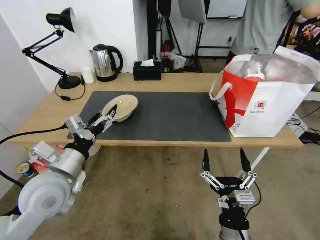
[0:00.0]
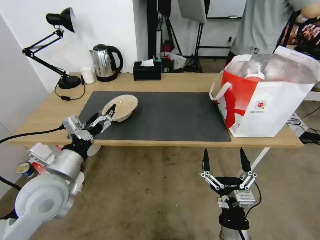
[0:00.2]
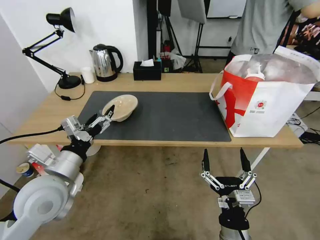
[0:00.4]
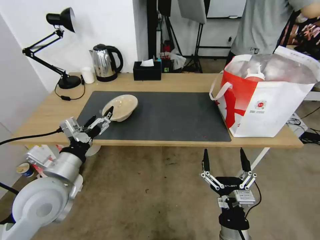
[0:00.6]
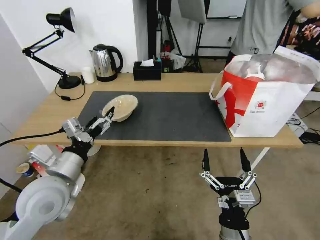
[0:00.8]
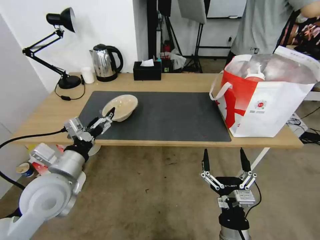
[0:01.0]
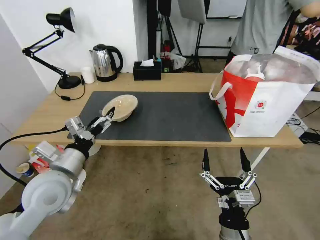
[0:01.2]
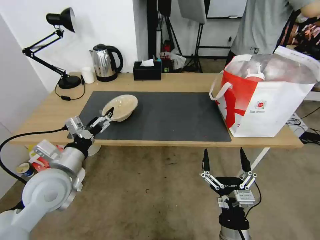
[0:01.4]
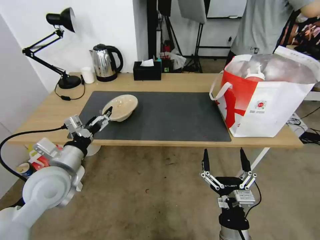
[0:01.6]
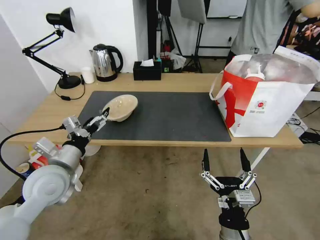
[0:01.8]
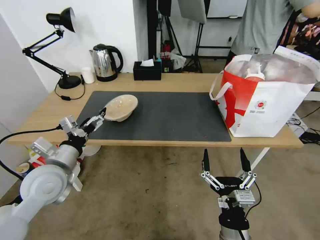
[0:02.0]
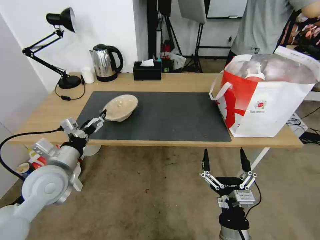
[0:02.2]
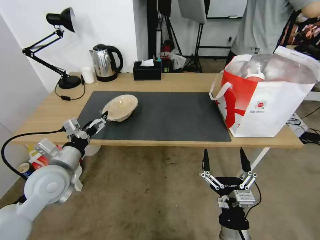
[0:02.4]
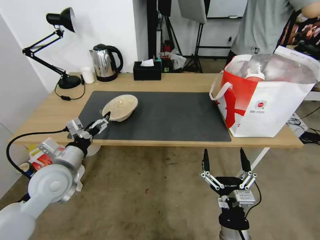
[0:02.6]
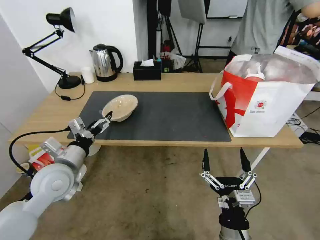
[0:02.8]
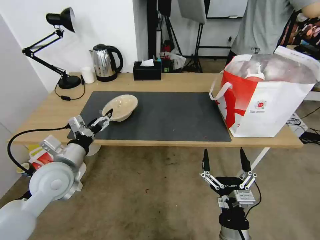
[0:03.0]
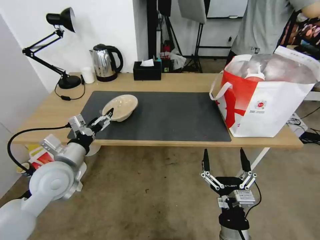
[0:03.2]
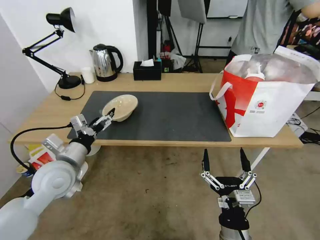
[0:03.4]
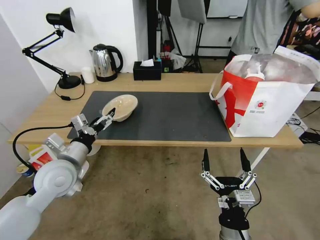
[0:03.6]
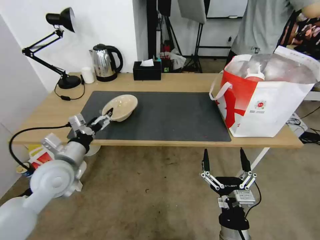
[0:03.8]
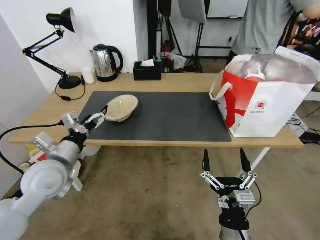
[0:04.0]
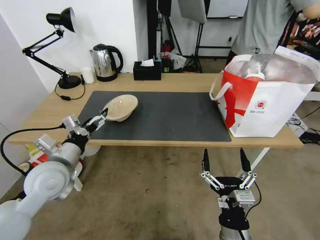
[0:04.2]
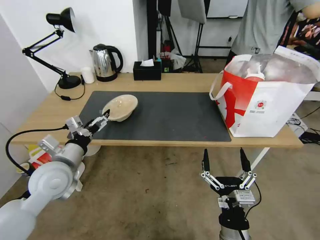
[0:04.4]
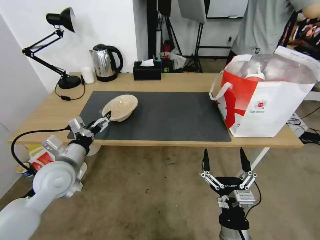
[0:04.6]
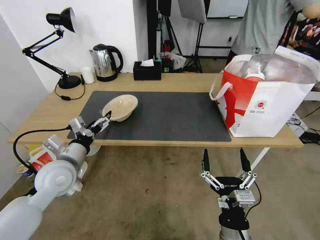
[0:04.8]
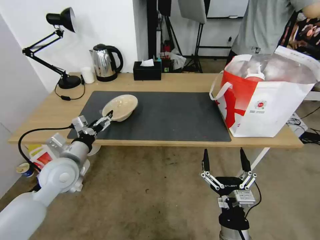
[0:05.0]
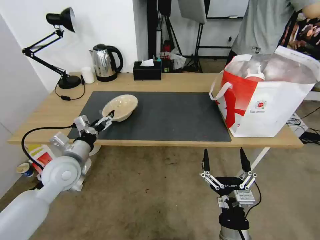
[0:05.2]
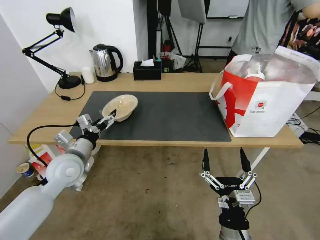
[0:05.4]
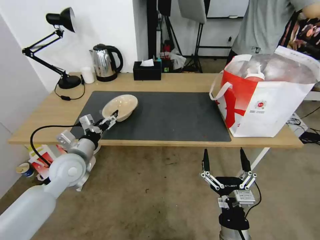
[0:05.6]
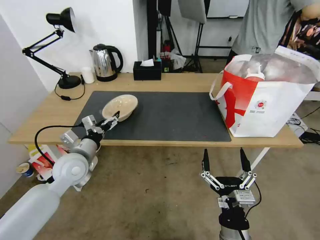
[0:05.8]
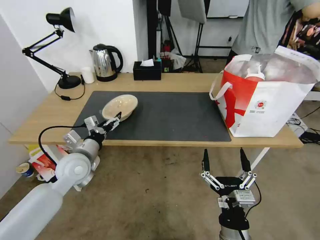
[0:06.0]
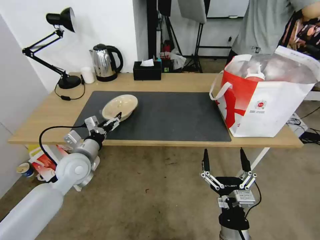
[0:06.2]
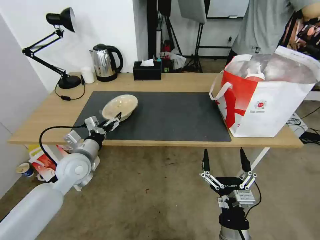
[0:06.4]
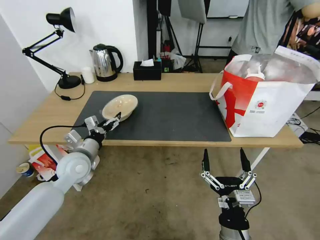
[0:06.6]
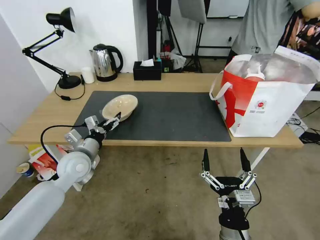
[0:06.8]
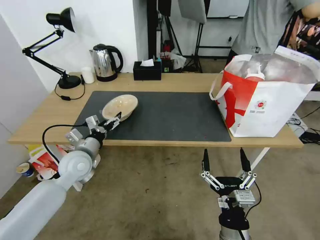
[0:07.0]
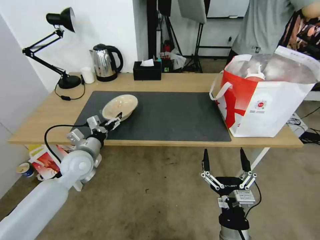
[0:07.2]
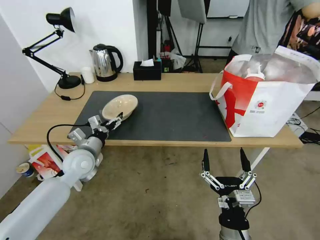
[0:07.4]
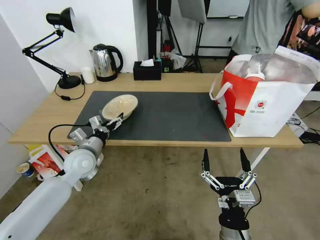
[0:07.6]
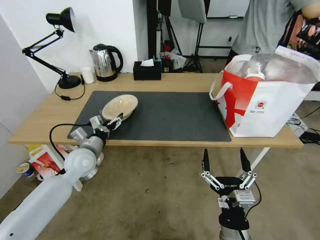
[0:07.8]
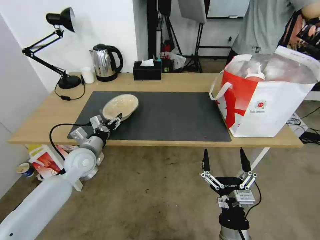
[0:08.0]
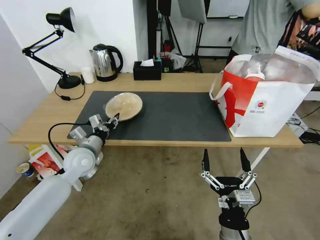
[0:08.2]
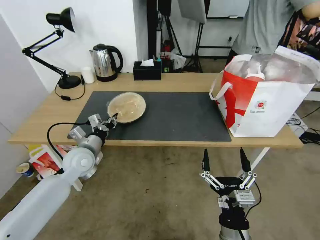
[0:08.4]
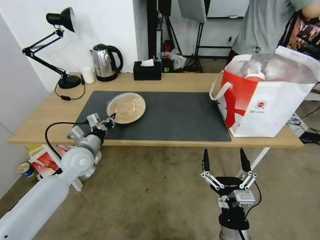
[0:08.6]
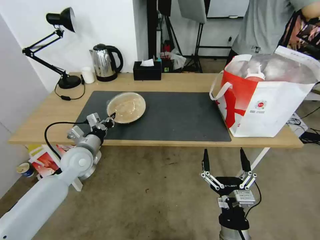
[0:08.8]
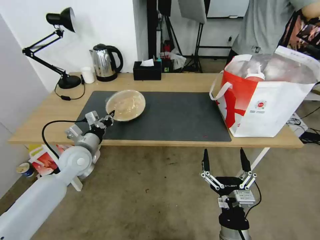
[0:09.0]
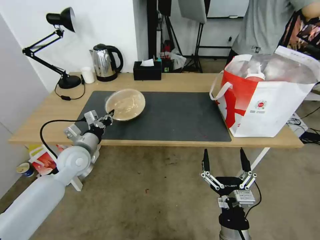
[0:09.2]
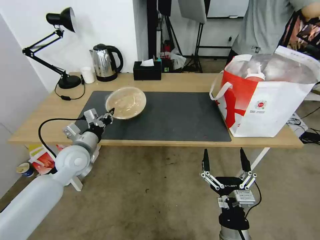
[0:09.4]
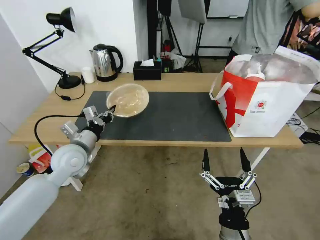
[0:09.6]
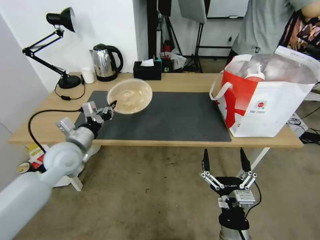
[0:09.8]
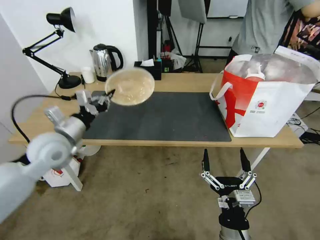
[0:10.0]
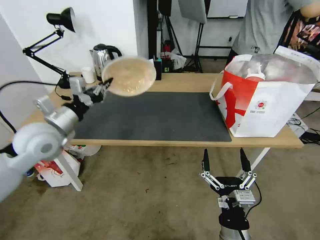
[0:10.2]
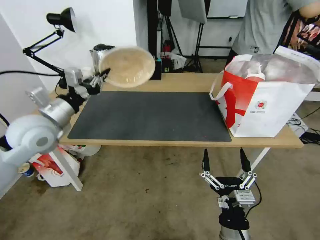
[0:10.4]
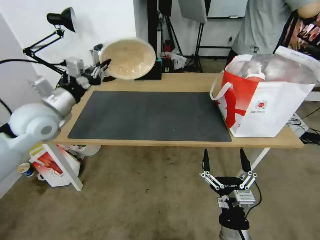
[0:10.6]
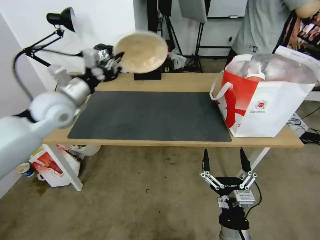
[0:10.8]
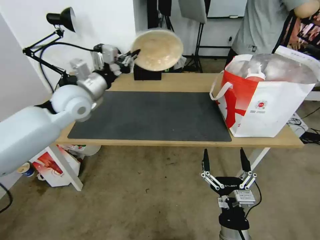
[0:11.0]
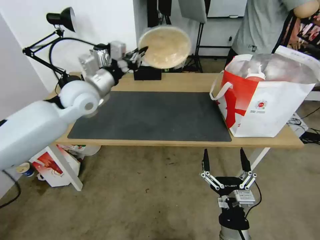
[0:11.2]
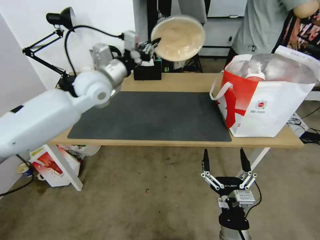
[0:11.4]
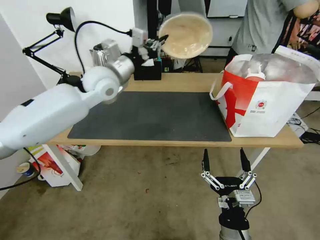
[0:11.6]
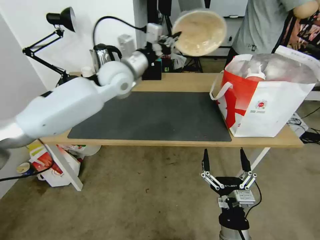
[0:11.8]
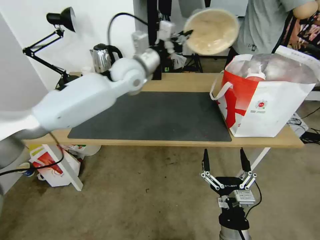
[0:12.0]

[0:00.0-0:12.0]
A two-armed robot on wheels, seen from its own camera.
Task of the whole recording: Pick up the trash from the table and place it into the takeout bag.
0:00.0 to 0:03.0: The grippers stay close to where they were, moving slightly.
0:03.0 to 0:04.4: The grippers make only small movements.
0:04.4 to 0:06.0: The left gripper goes about 5 cm forward.
0:06.0 to 0:07.6: The grippers move only a little.
0:07.6 to 0:09.0: The left gripper closes its fingers.
0:09.0 to 0:10.4: The left gripper goes some 15 cm upward.
0:10.4 to 0:12.0: The left gripper is displaced to the right and forward by about 25 cm.

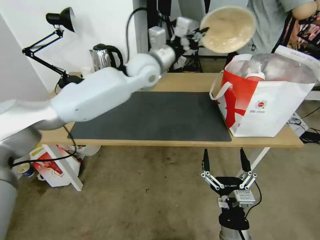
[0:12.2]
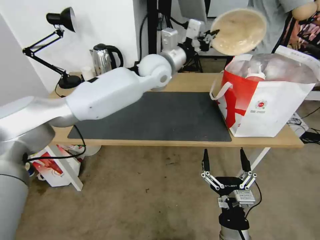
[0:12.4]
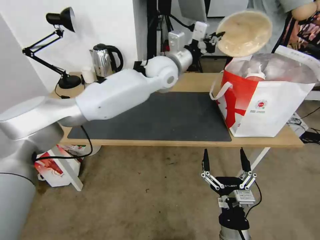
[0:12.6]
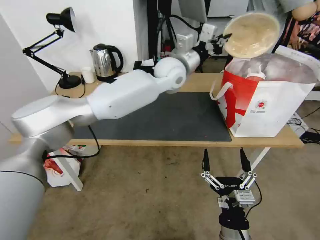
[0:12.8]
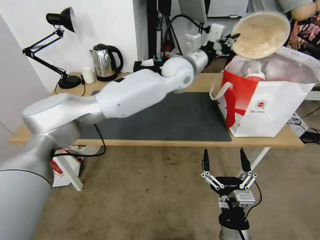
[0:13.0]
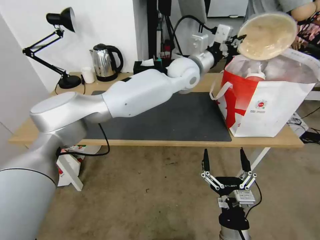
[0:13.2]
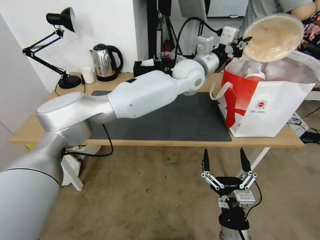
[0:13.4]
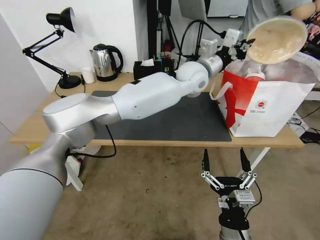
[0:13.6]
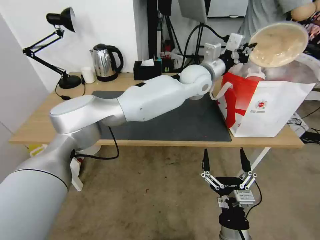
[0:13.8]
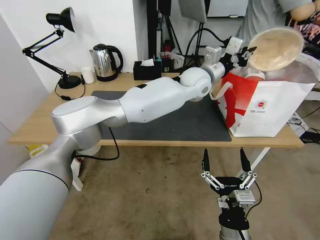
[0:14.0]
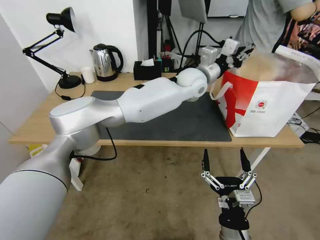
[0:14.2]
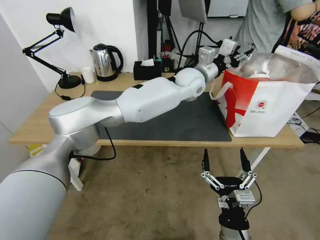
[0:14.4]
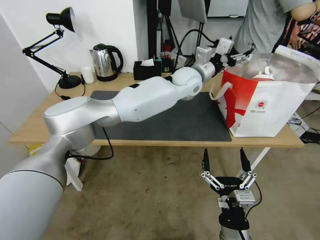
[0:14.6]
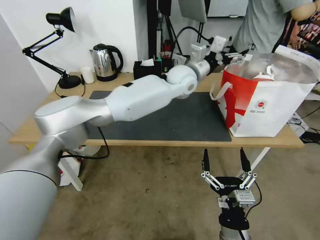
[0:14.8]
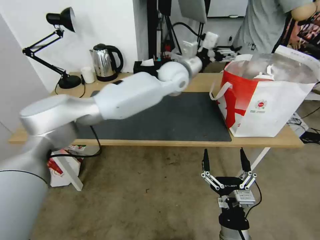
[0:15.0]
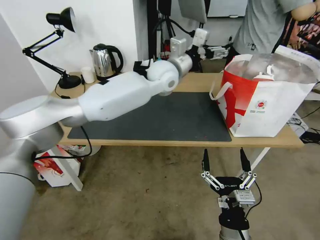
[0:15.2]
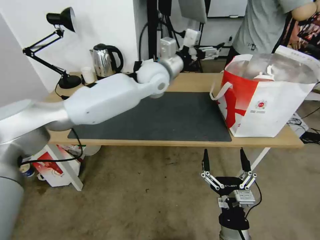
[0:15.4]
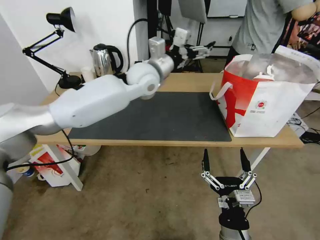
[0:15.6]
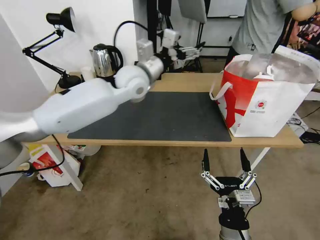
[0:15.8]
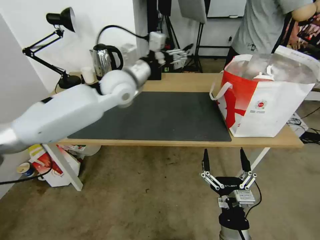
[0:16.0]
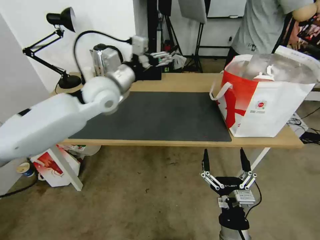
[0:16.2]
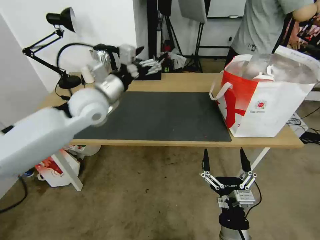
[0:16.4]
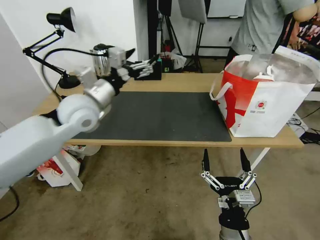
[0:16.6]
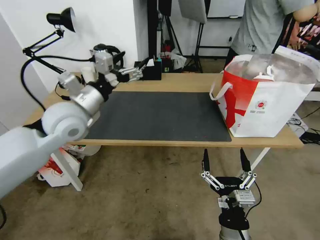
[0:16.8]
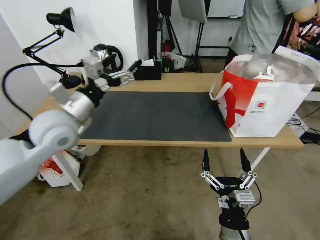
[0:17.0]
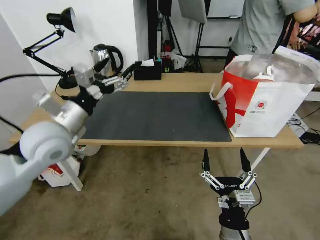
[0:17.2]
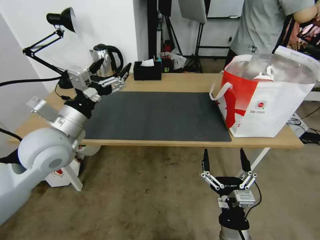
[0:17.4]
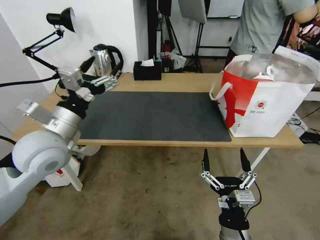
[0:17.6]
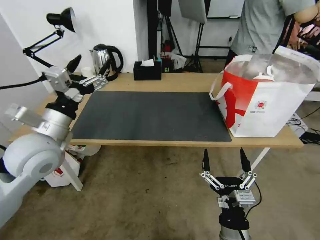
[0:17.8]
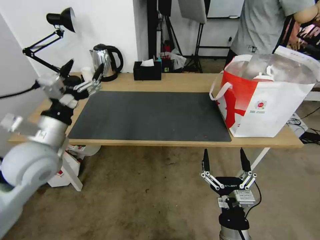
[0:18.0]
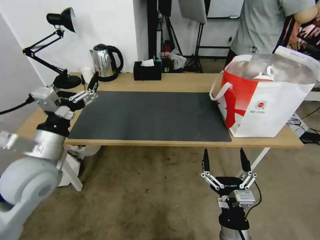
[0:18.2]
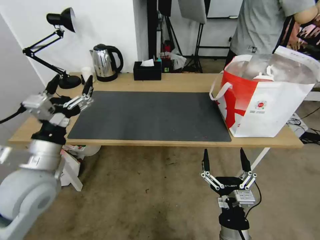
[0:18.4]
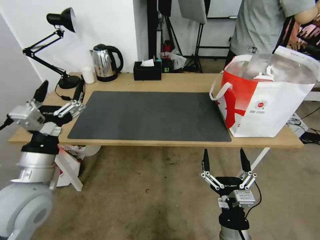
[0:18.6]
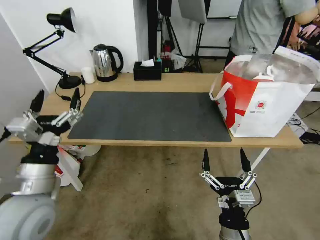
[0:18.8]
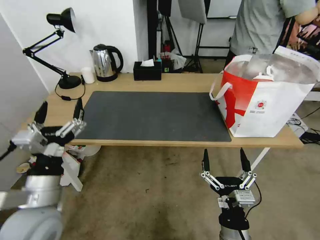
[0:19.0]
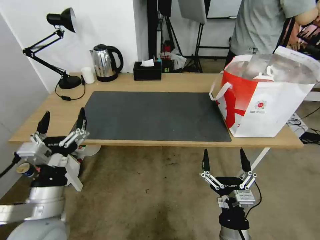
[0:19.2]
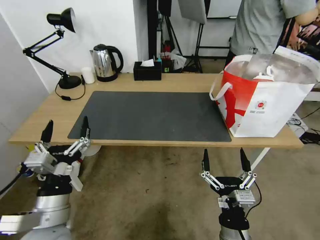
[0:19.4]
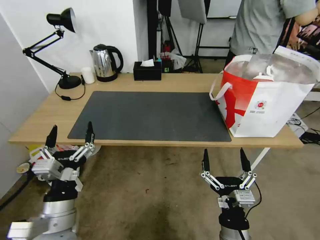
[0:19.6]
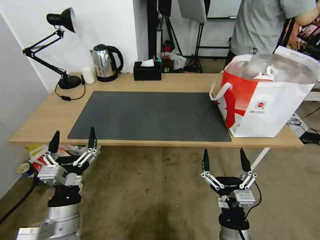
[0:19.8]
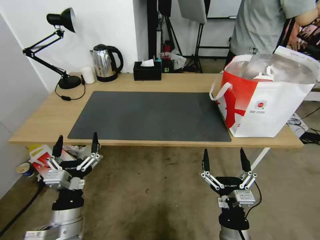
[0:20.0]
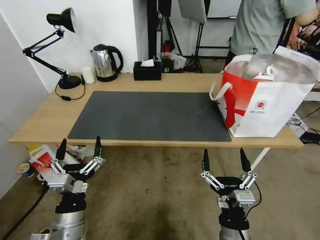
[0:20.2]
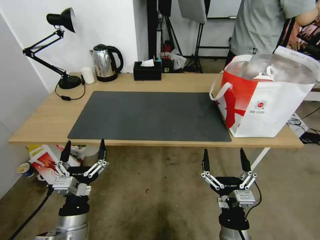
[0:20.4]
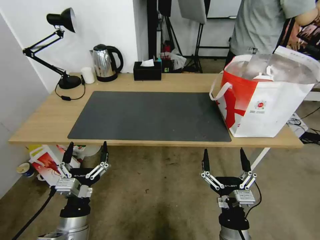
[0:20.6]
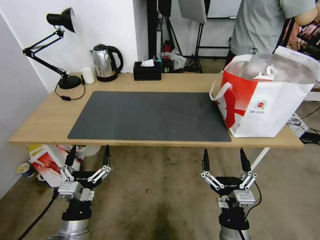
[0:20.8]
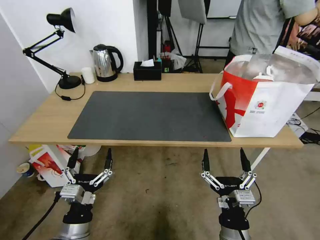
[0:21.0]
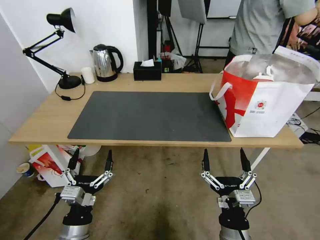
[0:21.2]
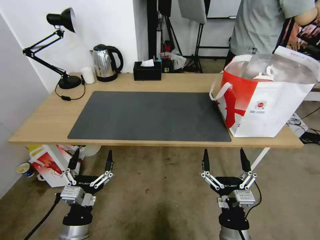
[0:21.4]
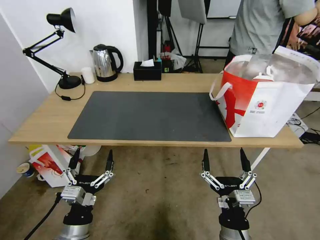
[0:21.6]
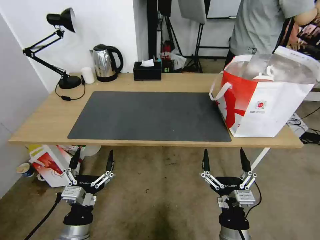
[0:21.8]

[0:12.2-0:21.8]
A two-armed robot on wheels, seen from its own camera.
Task of the whole recording: Pick up the trash from the table and place it into the takeout bag.
0:12.2 to 0:13.8: The left gripper travels to the right by about 20 cm.
0:13.8 to 0:15.4: The left gripper is displaced to the left by some 15 cm, and opens its fingers.
0:15.4 to 0:17.0: The left gripper goes about 30 cm to the left and backward.
0:17.0 to 0:18.6: The left gripper heads backward and downward, covering approximately 15 cm.
0:18.6 to 0:20.2: The left gripper travels downward, backward and to the right by approximately 15 cm.
0:20.2 to 0:21.8: The grippers move only a little.

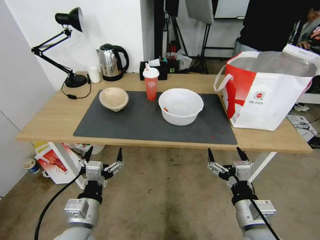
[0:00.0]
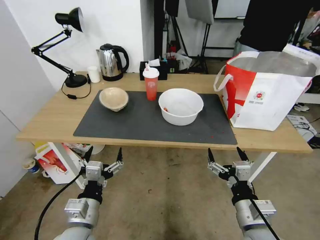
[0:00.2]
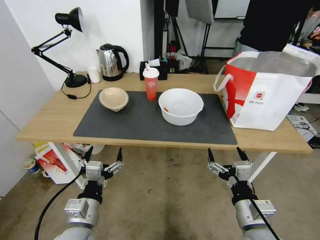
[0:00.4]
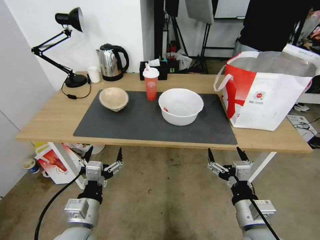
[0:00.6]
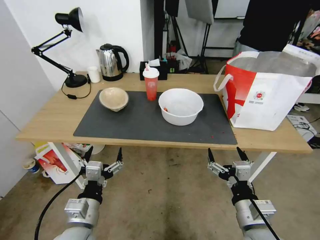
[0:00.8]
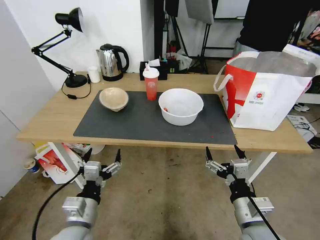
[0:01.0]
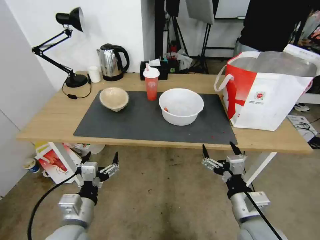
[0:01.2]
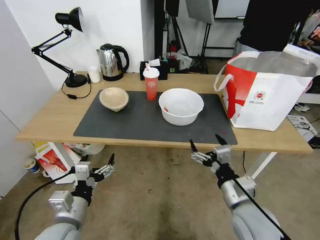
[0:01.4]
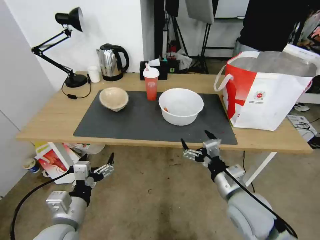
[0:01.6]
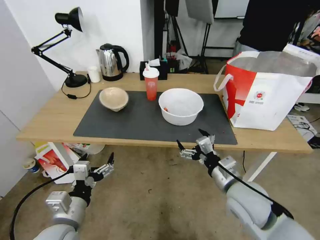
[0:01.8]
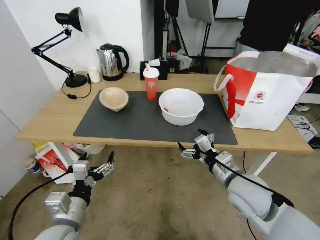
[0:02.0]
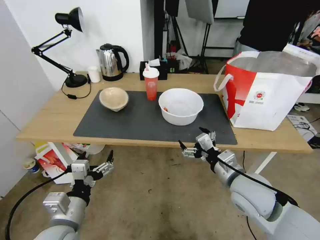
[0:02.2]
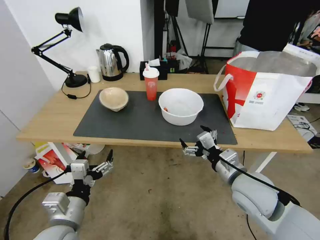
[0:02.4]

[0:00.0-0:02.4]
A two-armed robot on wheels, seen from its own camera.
Task of the whole recording: Pick up the trash from the table and place it into the takeout bag.
0:01.2 to 0:02.4: The right gripper heads forward, covering roughly 10 cm.
